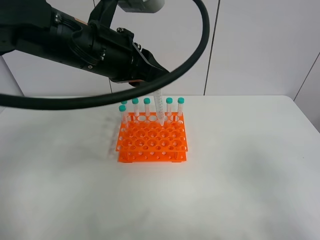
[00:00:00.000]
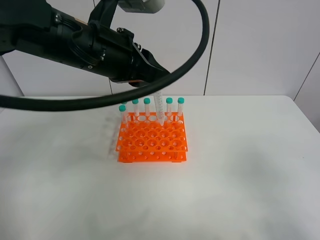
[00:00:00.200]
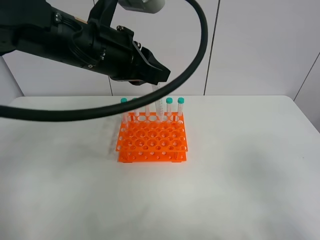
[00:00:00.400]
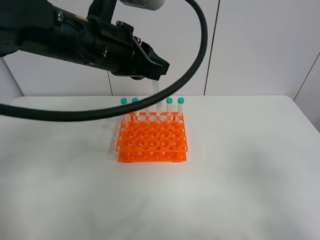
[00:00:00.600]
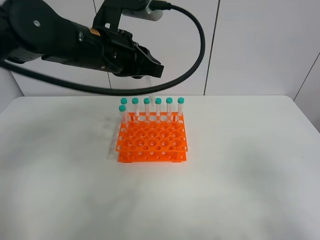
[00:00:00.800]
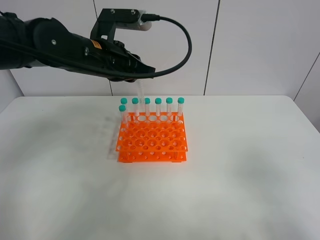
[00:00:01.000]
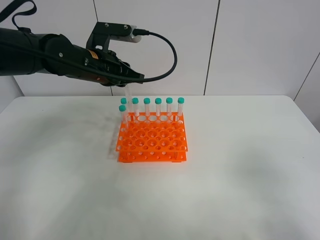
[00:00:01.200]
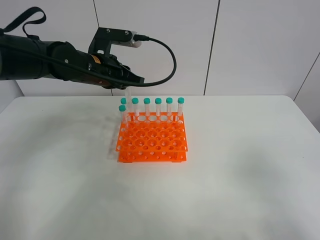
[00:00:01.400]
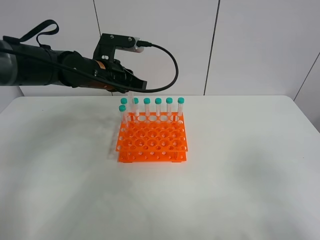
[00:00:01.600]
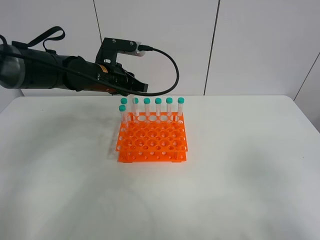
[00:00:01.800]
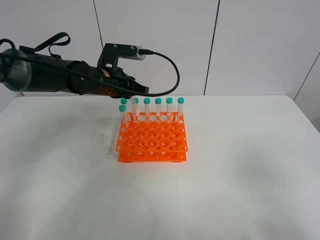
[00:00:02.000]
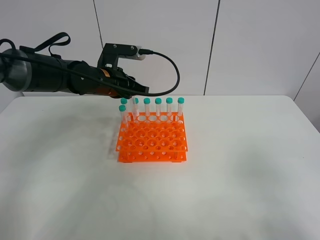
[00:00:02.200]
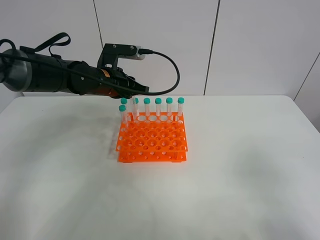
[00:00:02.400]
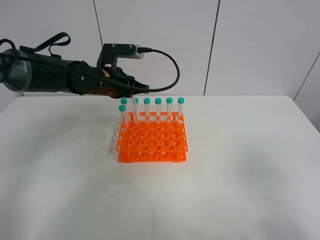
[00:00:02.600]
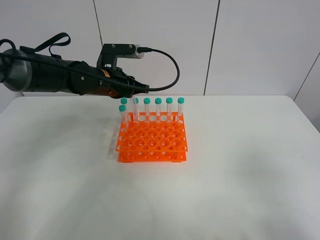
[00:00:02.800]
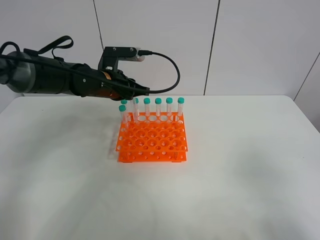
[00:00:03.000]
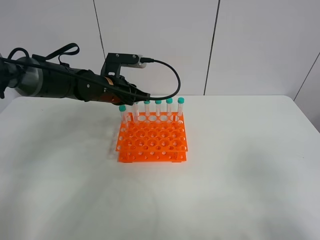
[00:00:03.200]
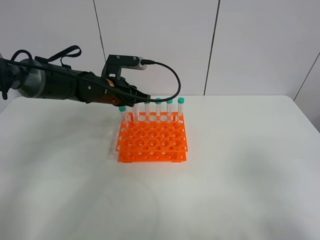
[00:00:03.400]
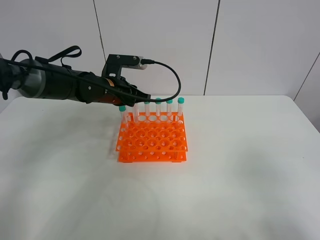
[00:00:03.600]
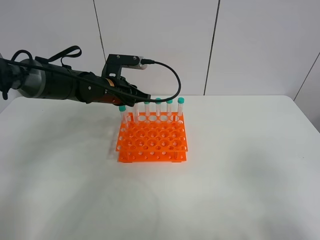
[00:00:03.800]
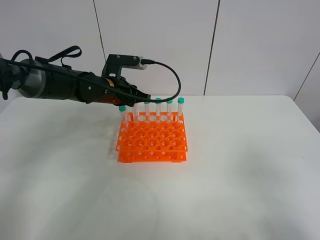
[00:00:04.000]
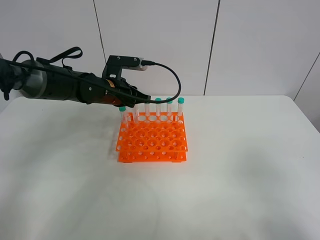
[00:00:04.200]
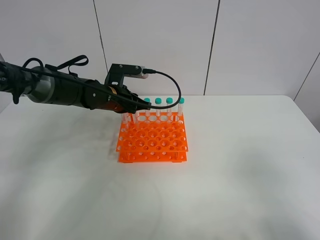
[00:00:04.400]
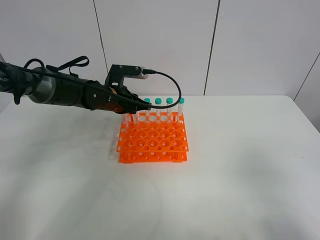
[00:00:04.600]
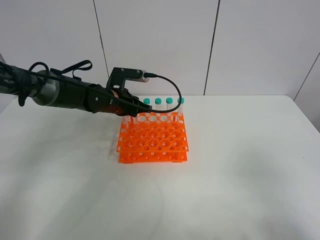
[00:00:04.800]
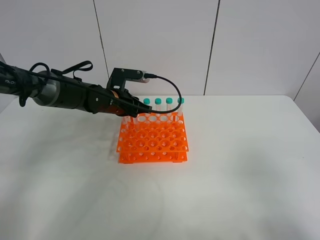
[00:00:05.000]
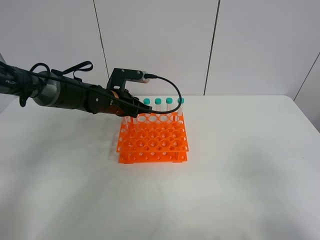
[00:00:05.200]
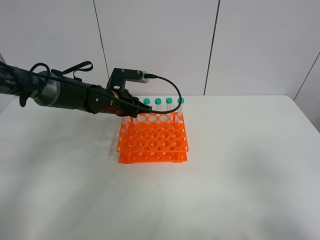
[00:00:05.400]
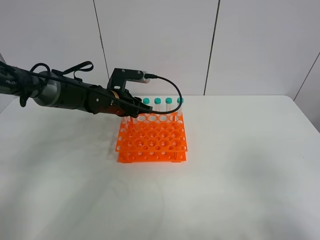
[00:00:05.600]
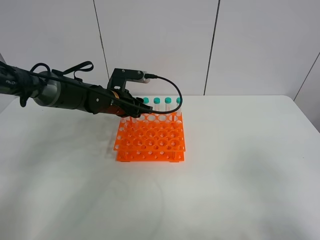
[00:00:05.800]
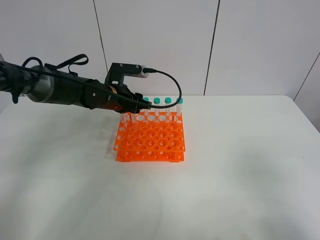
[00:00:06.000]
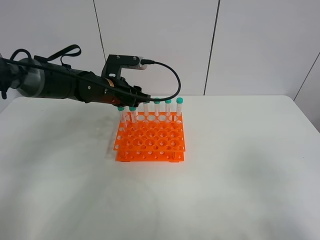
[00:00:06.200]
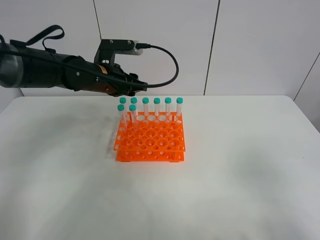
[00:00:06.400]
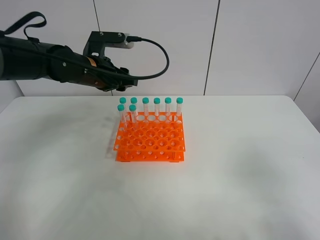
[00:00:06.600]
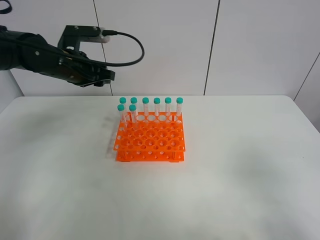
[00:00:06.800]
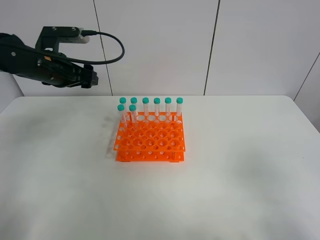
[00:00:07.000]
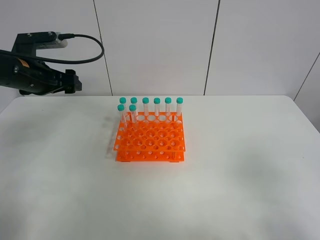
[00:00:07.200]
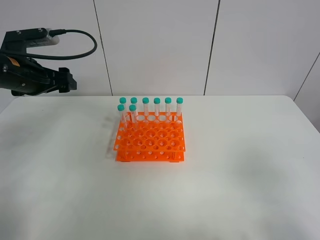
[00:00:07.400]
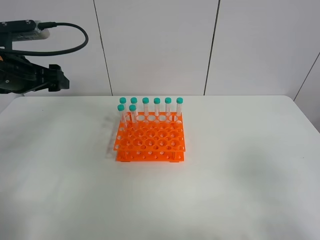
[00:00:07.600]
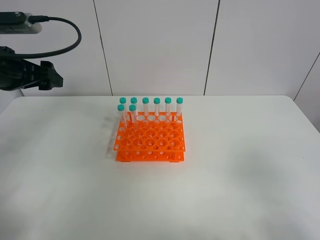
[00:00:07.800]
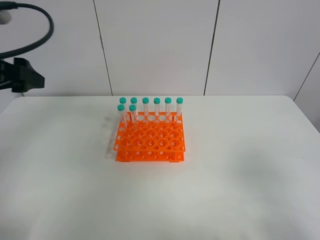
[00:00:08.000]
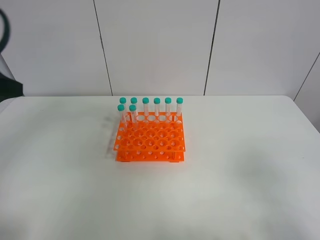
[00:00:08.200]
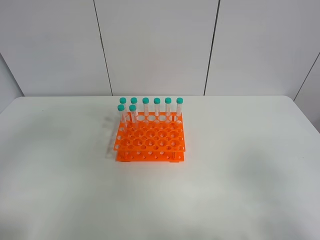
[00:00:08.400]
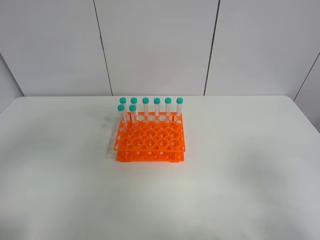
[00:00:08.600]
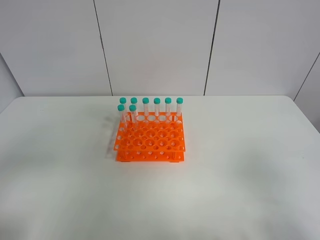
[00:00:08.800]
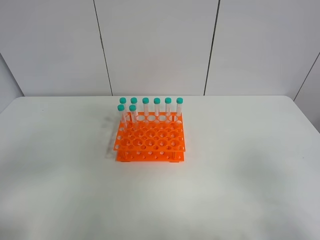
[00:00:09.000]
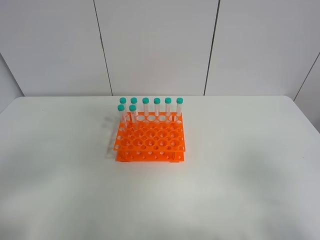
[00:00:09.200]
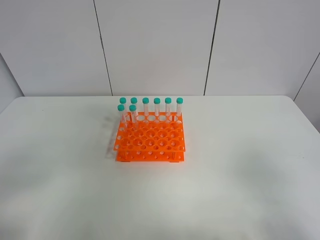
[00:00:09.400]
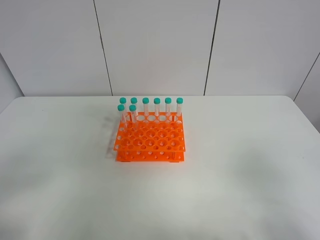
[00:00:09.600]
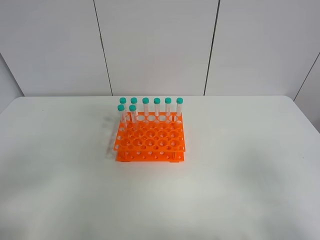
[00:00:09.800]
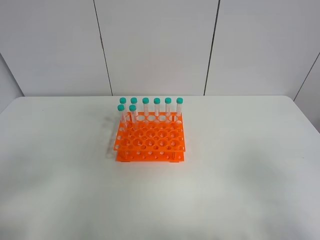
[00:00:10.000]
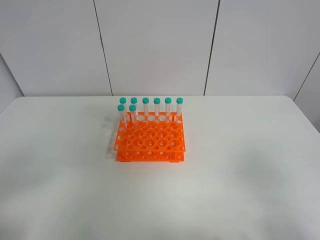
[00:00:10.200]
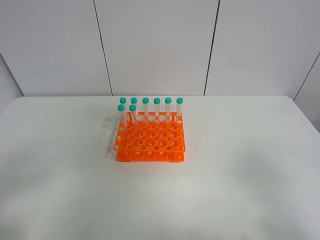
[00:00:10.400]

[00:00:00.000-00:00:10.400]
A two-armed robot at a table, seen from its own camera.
Task of the whole recording: Put the test tube on the table back onto the test tube rack.
Step, 00:00:00.000 to 00:00:05.800: Place the test tube on the test tube rack with the left gripper.
00:00:00.000 to 00:00:01.400: The left gripper moves forward and downward, about 15 cm.
00:00:01.400 to 00:00:03.000: The grippers move only a little.
00:00:03.000 to 00:00:04.400: The grippers move only a little.
00:00:04.400 to 00:00:06.000: The left gripper opens.
00:00:06.000 to 00:00:07.400: The left gripper goes approximately 20 cm to the left, upward and backward, and opens up.
00:00:07.400 to 00:00:09.000: The left gripper is displaced backward by some 35 cm.

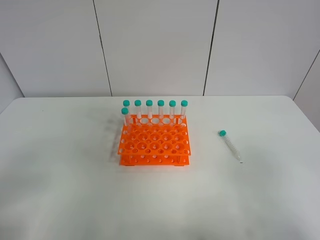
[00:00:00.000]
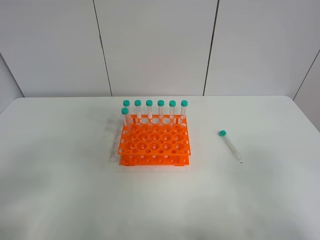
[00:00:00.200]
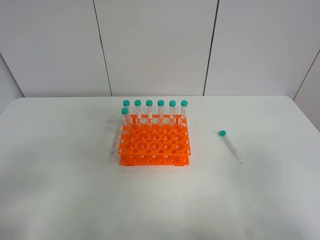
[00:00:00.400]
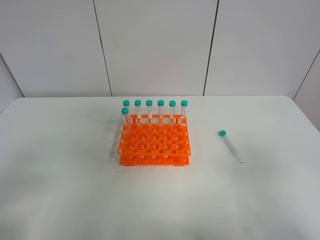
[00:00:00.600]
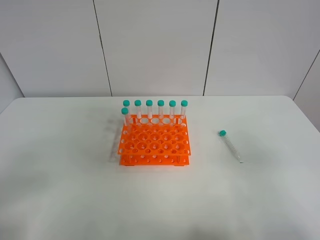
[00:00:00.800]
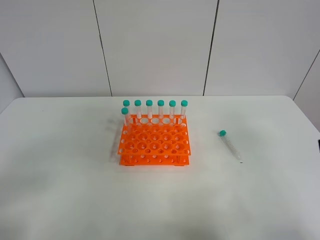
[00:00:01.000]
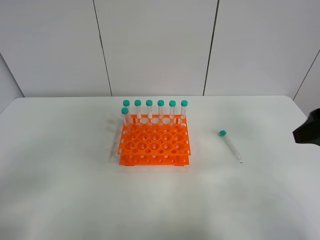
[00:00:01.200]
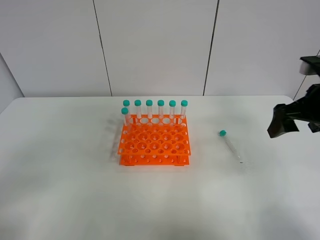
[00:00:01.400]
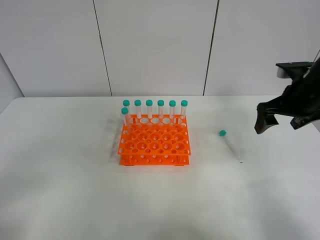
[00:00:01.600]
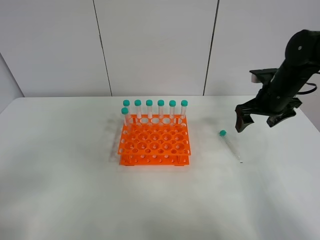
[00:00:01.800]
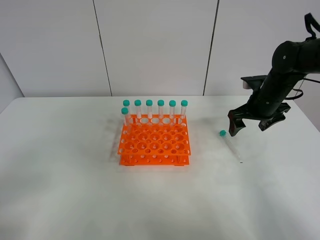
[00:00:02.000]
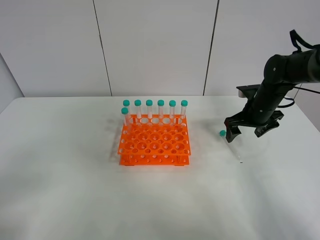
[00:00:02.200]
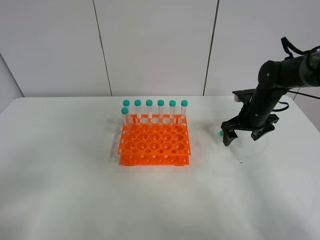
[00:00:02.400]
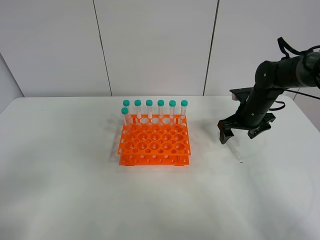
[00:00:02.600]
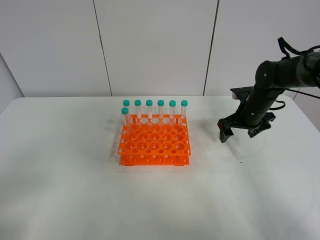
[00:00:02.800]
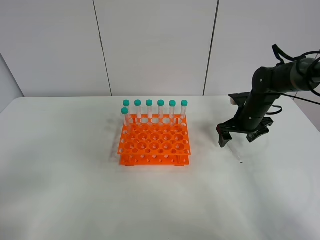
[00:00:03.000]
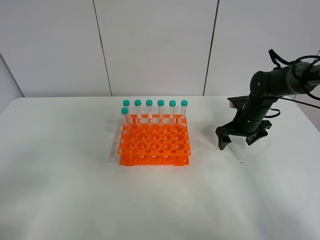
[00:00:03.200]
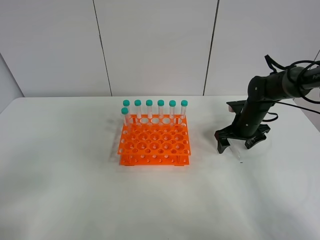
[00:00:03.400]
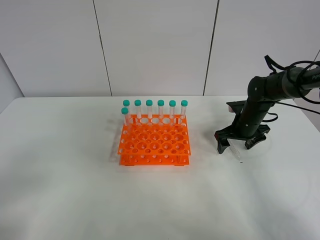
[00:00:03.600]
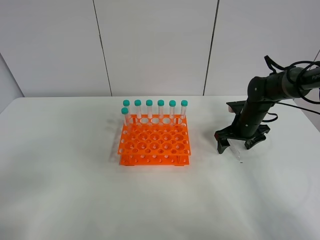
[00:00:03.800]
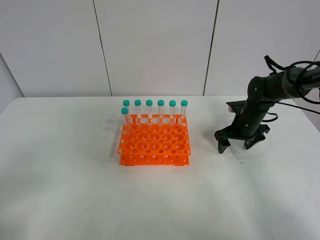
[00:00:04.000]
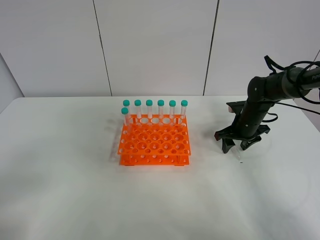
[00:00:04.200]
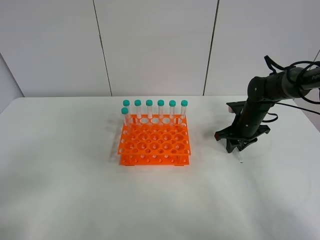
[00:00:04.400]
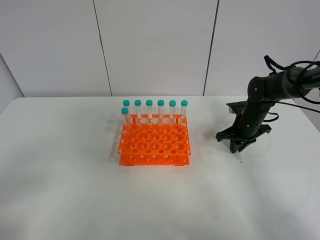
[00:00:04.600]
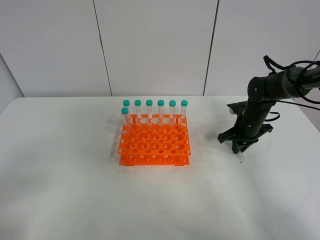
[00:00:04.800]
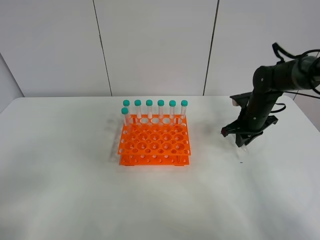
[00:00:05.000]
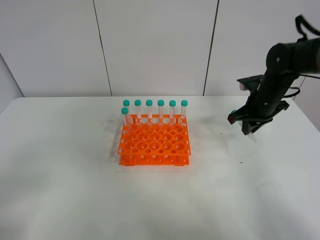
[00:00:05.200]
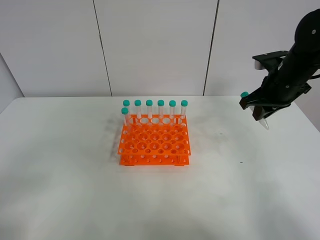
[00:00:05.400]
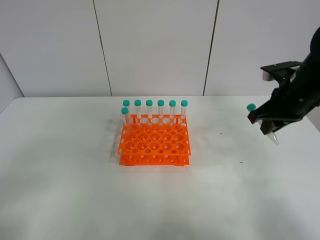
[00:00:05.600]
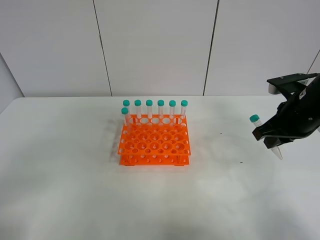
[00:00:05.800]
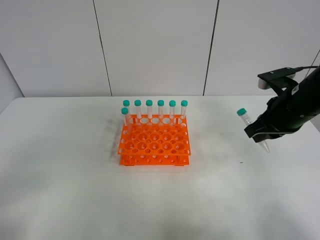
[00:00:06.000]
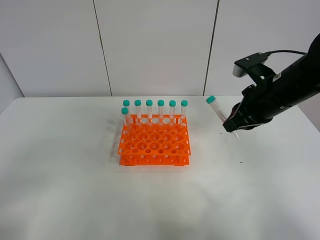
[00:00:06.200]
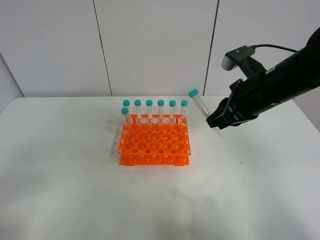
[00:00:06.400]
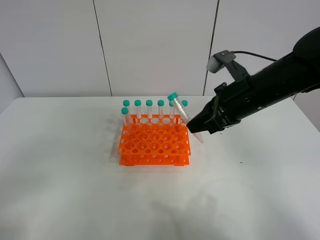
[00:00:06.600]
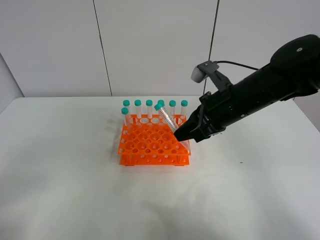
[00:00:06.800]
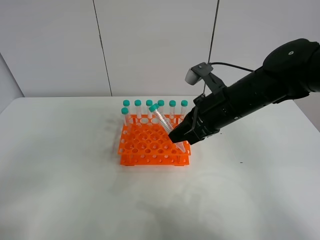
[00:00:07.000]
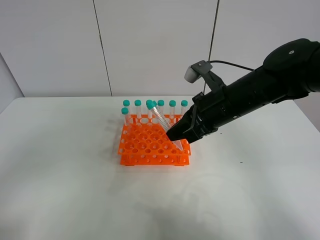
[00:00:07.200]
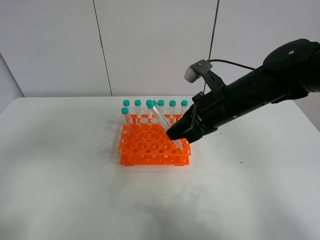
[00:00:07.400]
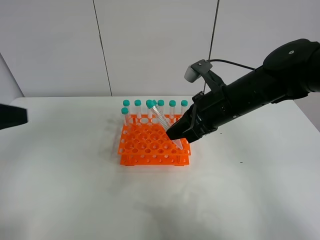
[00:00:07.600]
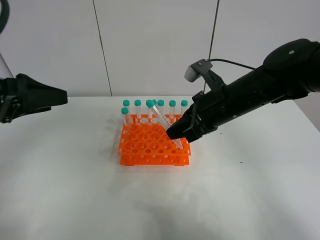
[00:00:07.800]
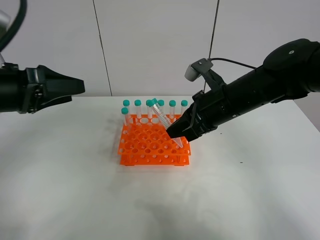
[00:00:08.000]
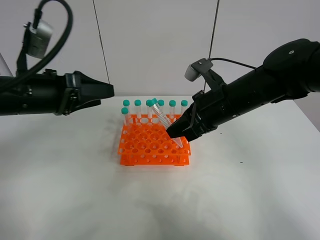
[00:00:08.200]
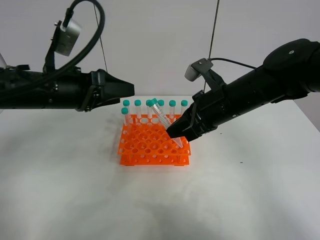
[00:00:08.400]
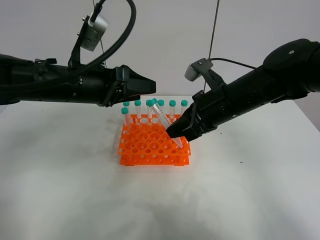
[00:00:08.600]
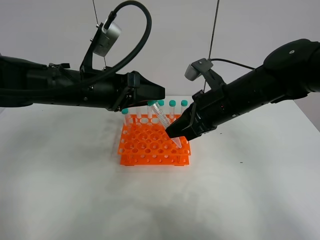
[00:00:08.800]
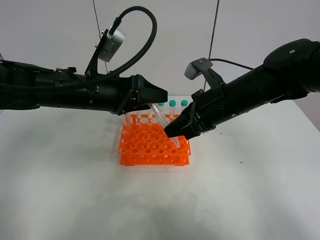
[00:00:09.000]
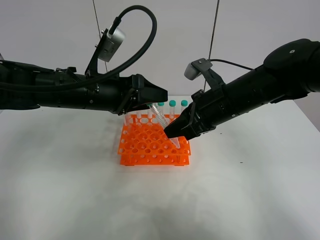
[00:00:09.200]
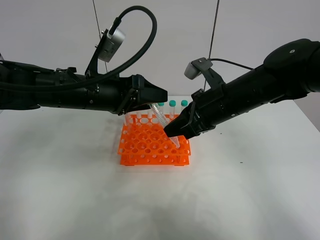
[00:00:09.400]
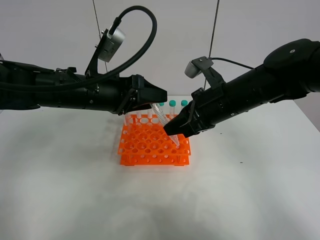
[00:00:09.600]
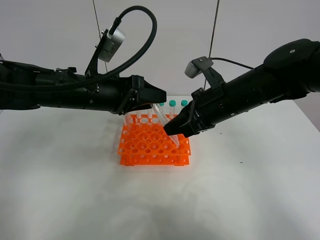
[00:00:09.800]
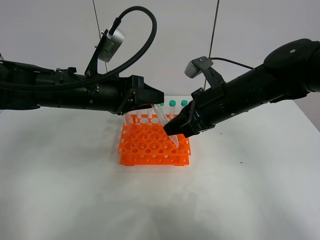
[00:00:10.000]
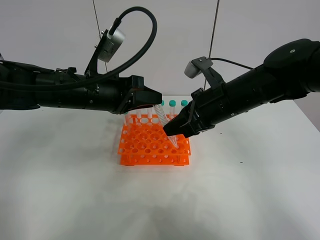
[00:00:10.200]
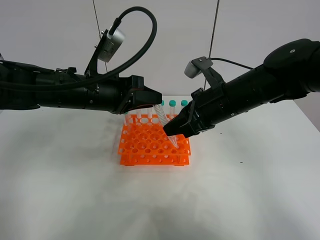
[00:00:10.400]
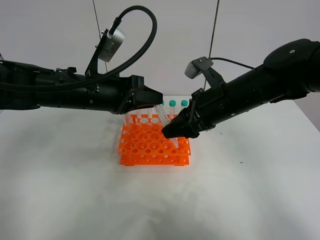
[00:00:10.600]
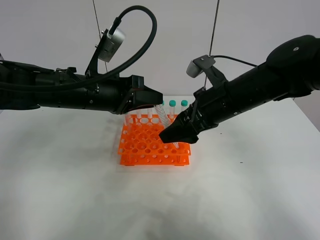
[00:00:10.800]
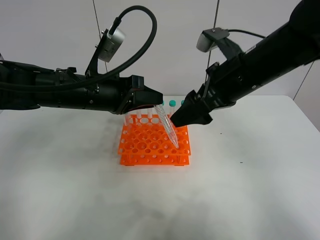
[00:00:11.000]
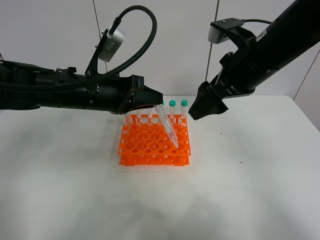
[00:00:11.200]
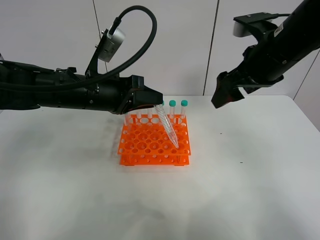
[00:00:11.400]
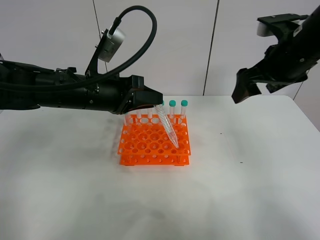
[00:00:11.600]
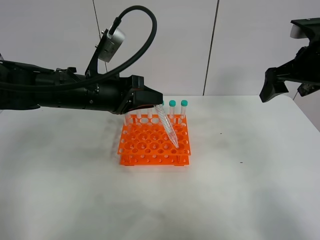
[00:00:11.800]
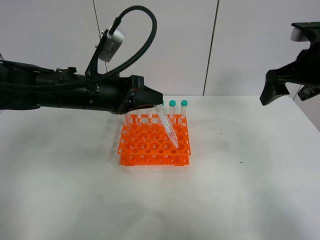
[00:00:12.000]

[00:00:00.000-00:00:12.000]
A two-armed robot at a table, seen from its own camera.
Task of the whole recording: Put the test tube on the table back onto the test tube rack.
Step, 00:00:00.000 to 00:00:04.600: Pick up the test tube with the right gripper.
Step, 00:00:04.800 to 00:00:10.600: Move the test tube from the right gripper to the left gripper.
00:00:00.000 to 00:00:01.600: The right gripper moves forward, about 35 cm.
00:00:01.600 to 00:00:03.000: The right gripper heads downward and forward, covering approximately 15 cm.
00:00:03.000 to 00:00:04.400: The right gripper closes up.
00:00:04.400 to 00:00:06.000: The right gripper heads upward and backward, covering about 20 cm.
00:00:06.000 to 00:00:07.600: The left gripper is displaced forward by roughly 15 cm, while the right gripper moves to the left, some 10 cm.
00:00:07.600 to 00:00:09.000: The left gripper goes roughly 20 cm to the right, forward and downward.
00:00:09.000 to 00:00:10.400: The left gripper closes.
00:00:10.400 to 00:00:12.000: The right gripper heads to the right and upward, covering approximately 20 cm, and opens.
